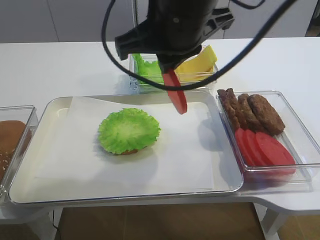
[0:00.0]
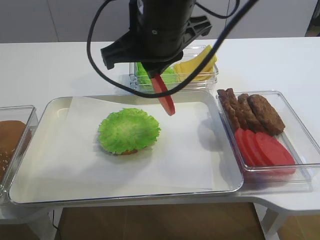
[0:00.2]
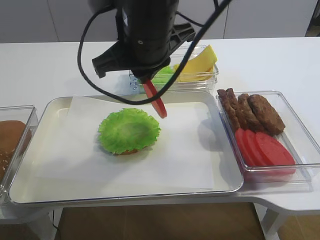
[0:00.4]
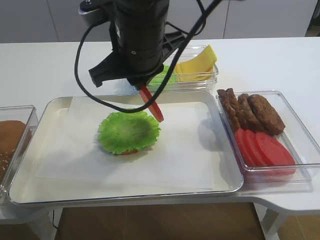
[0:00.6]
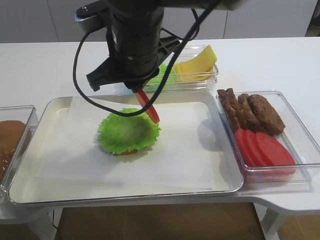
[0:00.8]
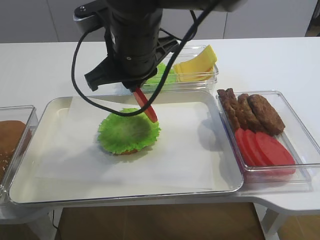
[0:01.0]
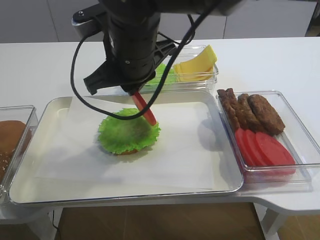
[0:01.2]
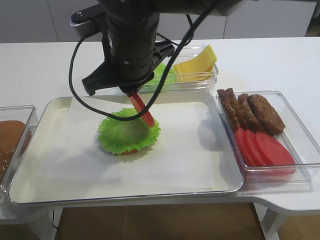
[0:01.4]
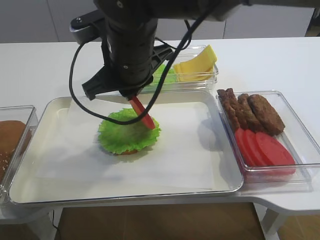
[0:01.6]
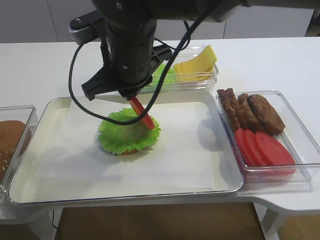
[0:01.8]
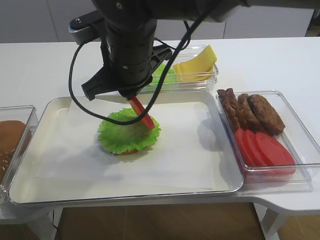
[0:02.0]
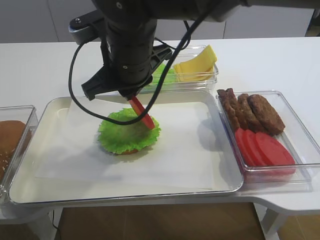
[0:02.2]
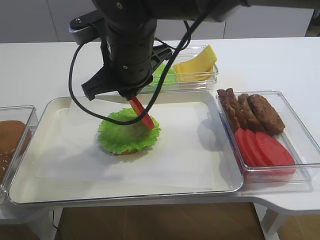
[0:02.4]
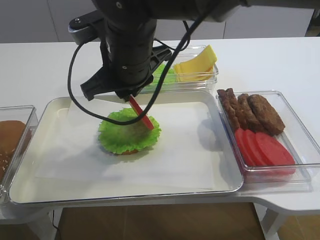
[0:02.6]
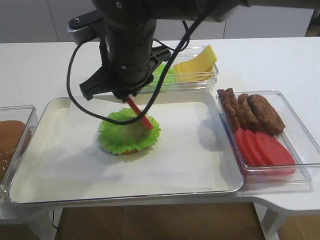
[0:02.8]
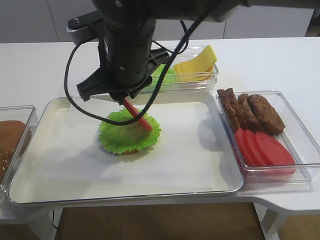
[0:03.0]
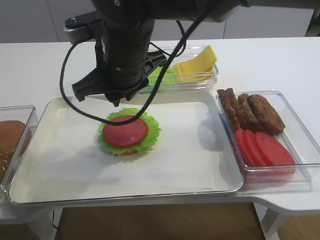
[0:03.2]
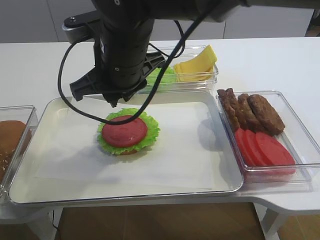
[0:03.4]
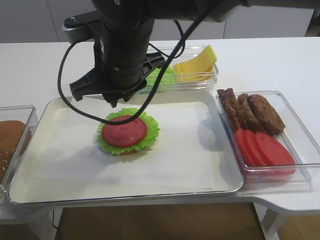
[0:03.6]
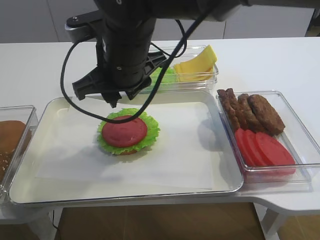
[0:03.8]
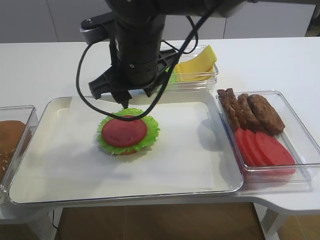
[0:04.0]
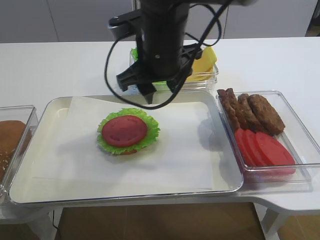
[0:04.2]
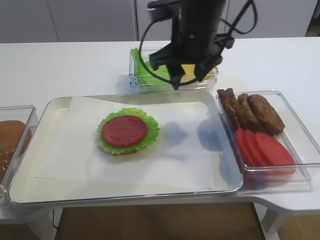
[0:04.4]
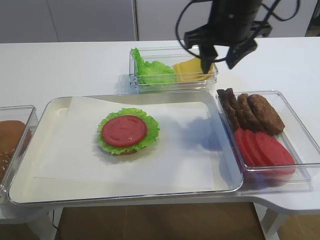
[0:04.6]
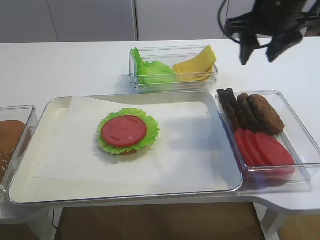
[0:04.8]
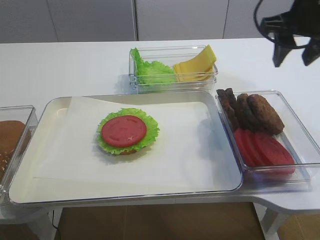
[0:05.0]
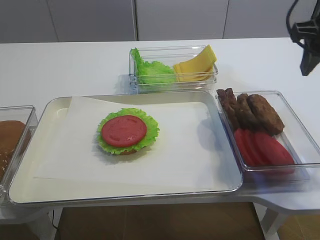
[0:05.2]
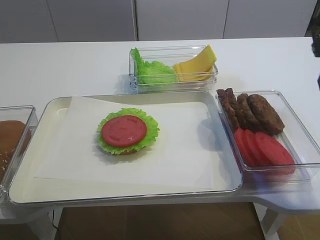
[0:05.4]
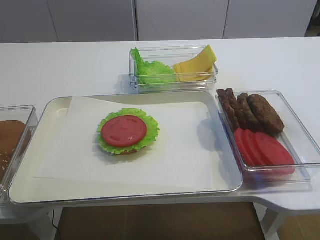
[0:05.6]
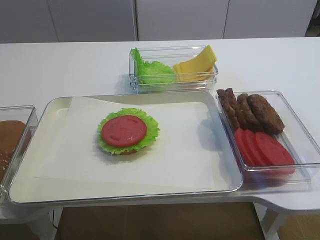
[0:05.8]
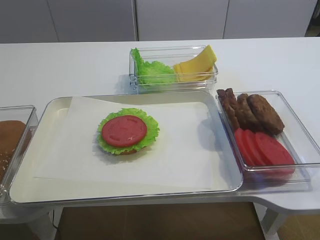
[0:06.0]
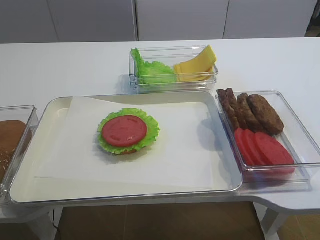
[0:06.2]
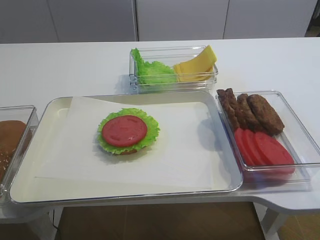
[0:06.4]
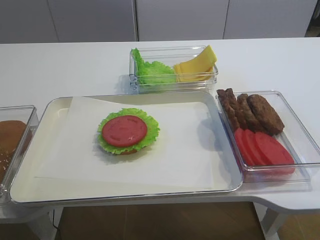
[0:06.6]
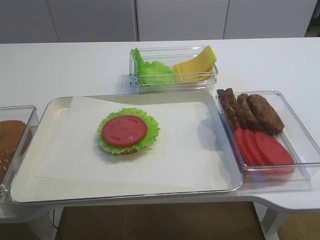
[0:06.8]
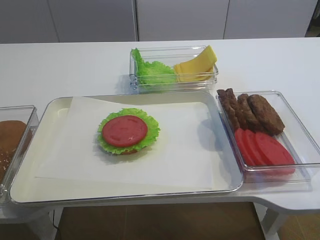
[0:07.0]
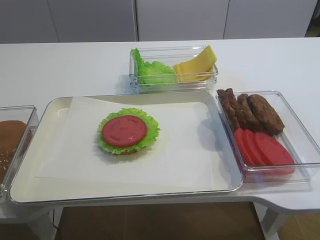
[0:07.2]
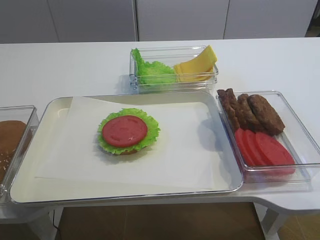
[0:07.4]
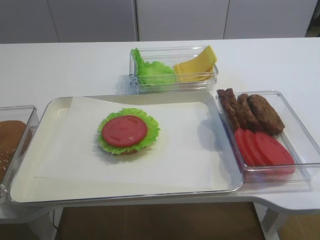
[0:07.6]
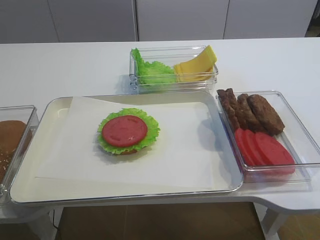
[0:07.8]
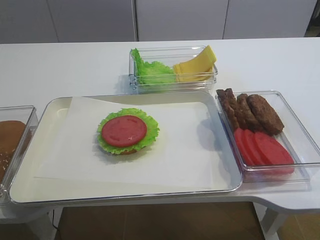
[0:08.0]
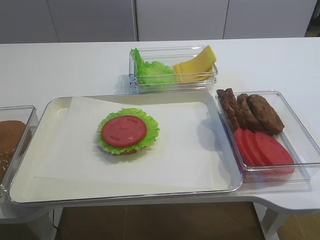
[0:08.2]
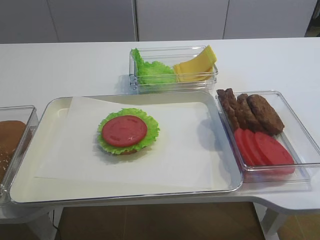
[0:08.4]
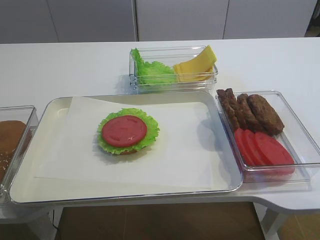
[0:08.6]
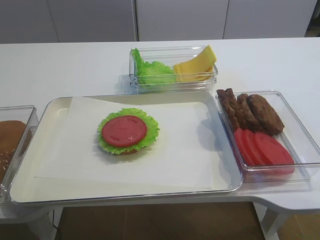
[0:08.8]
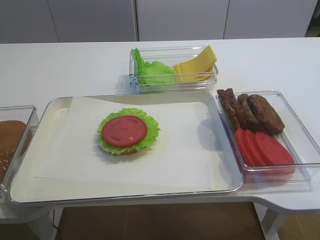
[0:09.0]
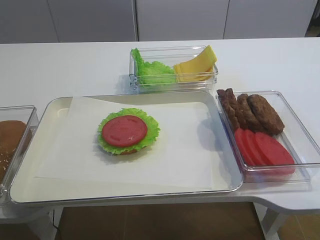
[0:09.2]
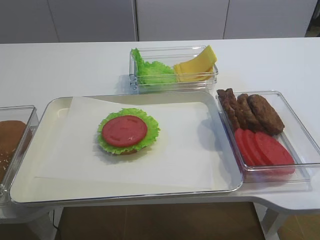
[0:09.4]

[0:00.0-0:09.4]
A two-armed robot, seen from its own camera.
Step, 0:00.0 to 0:03.4: Place the tomato slice on the lettuce leaf with the right gripper.
0:00.0 to 0:01.6: The right gripper travels downward and to the left by some 10 cm.
0:01.6 to 0:03.2: There are only small adjustments of the grippers.
0:03.2 to 0:04.8: The right gripper shifts approximately 20 cm to the right, and opens up.
0:04.8 to 0:06.2: The right gripper moves backward, roughly 35 cm.
0:06.2 to 0:07.8: The right gripper travels downward by some 10 cm.

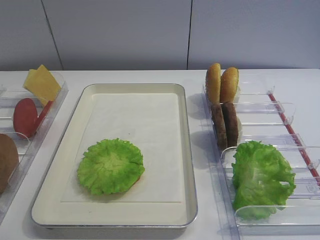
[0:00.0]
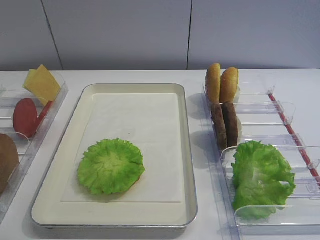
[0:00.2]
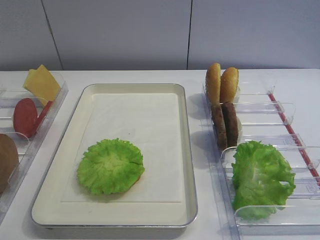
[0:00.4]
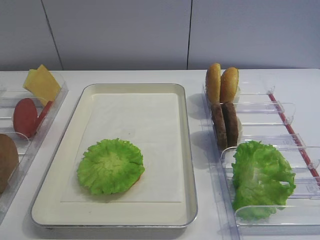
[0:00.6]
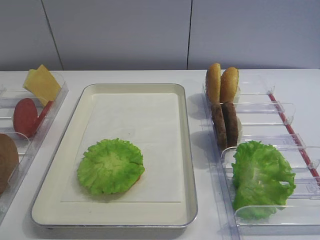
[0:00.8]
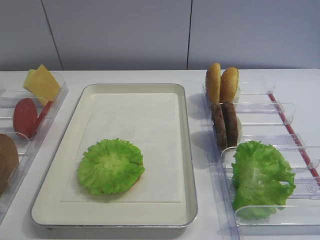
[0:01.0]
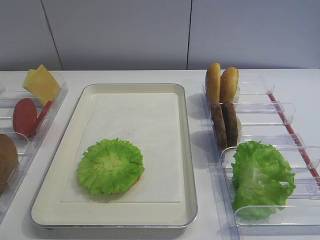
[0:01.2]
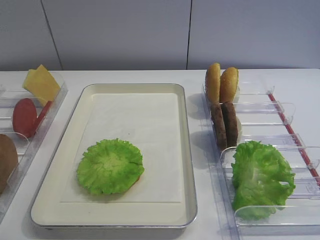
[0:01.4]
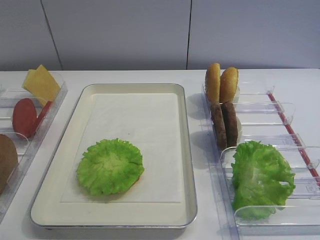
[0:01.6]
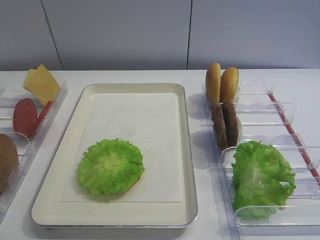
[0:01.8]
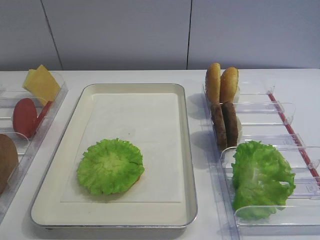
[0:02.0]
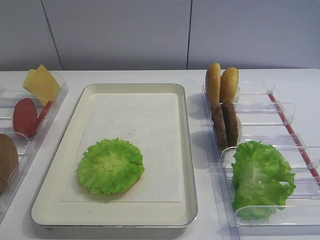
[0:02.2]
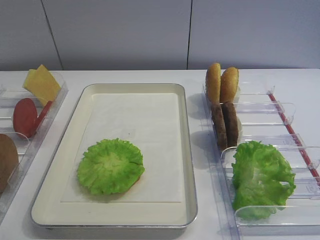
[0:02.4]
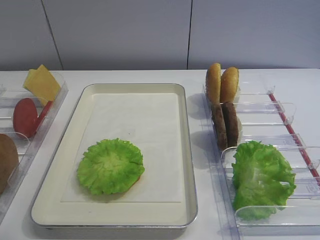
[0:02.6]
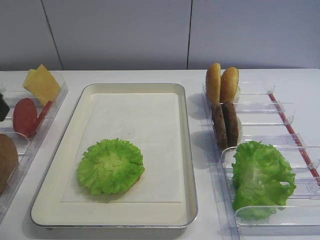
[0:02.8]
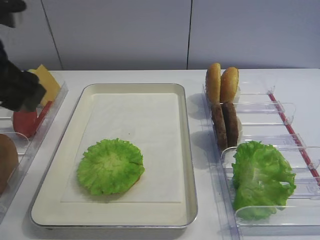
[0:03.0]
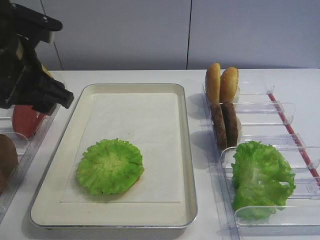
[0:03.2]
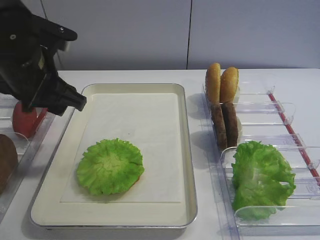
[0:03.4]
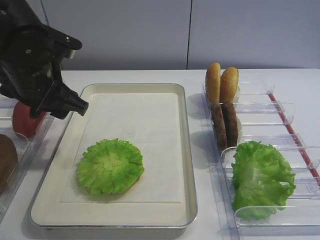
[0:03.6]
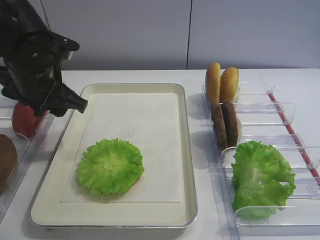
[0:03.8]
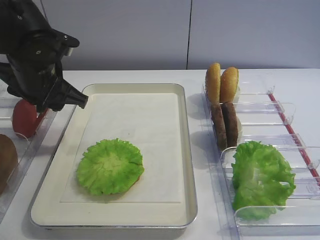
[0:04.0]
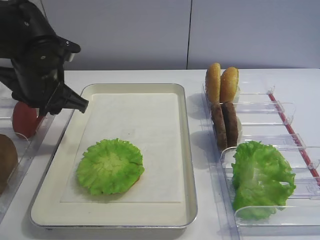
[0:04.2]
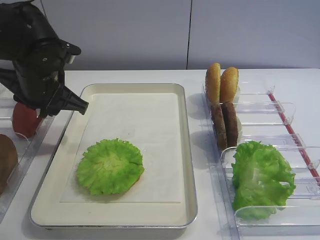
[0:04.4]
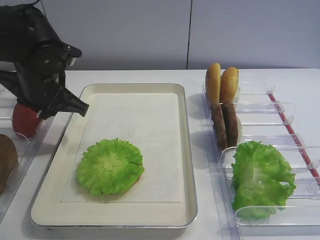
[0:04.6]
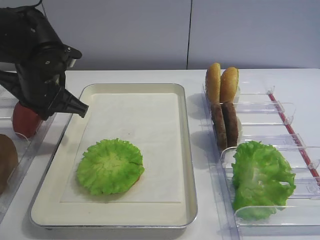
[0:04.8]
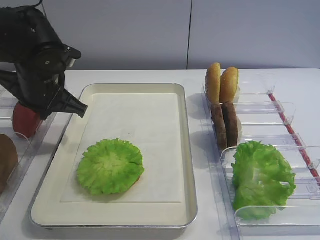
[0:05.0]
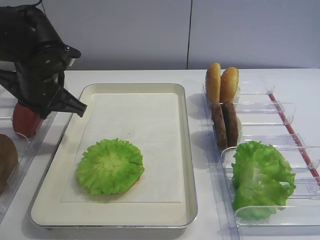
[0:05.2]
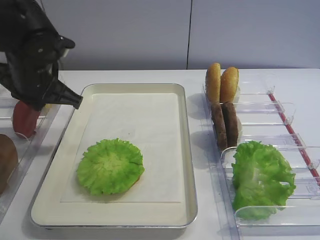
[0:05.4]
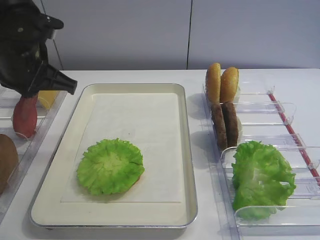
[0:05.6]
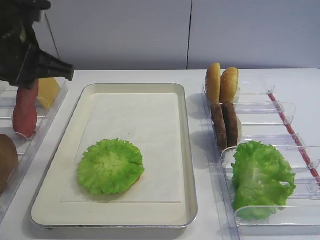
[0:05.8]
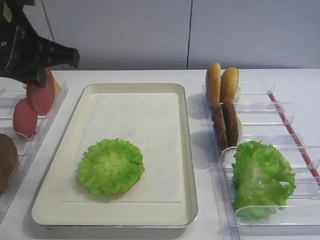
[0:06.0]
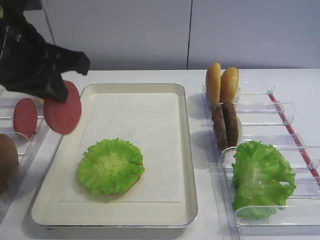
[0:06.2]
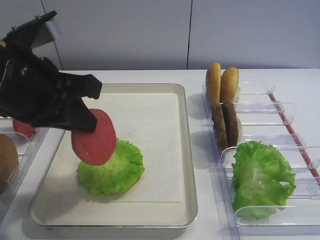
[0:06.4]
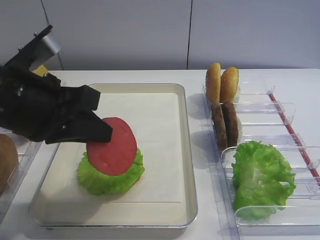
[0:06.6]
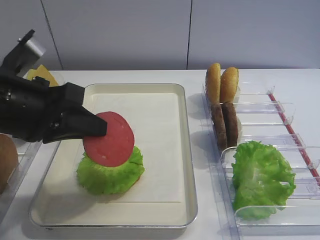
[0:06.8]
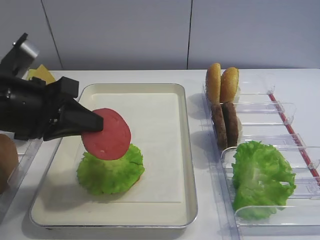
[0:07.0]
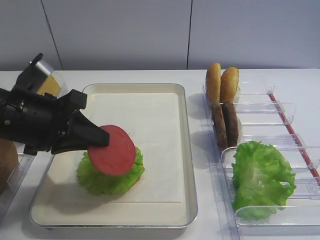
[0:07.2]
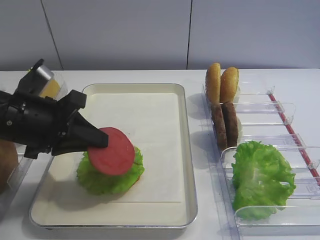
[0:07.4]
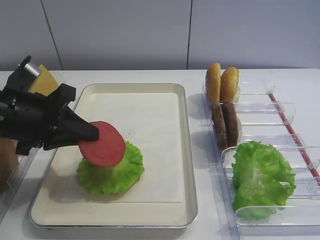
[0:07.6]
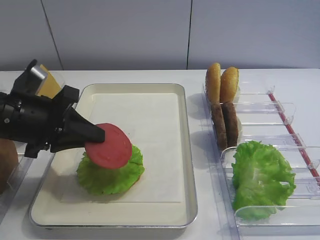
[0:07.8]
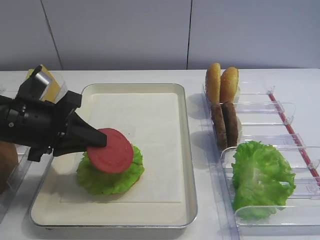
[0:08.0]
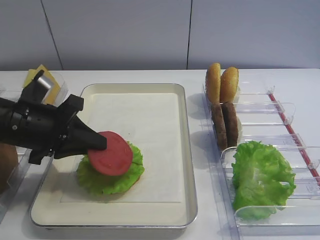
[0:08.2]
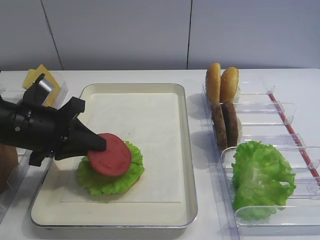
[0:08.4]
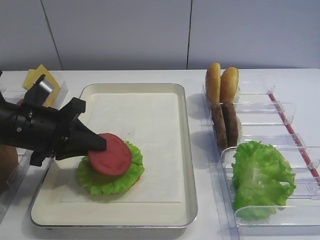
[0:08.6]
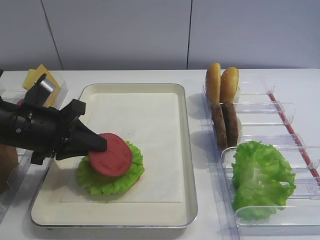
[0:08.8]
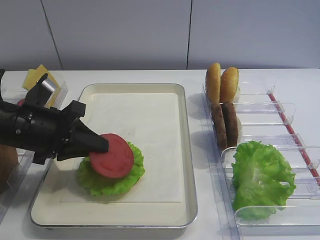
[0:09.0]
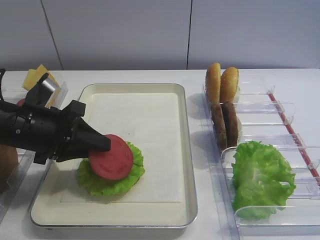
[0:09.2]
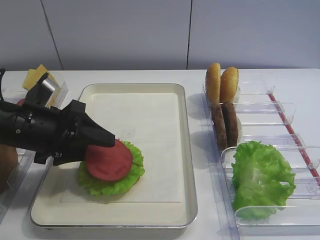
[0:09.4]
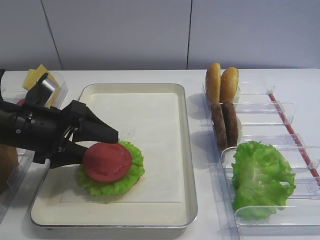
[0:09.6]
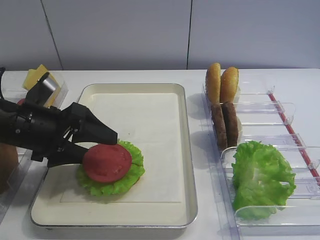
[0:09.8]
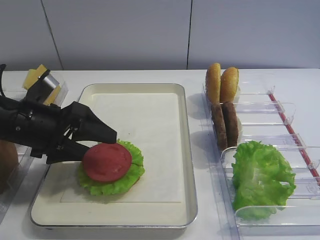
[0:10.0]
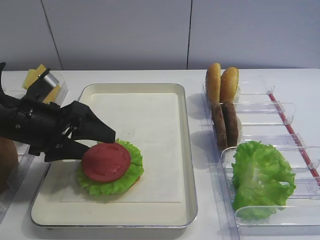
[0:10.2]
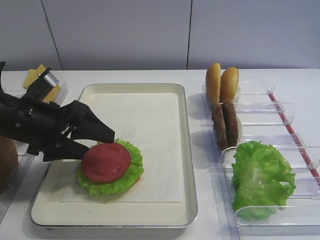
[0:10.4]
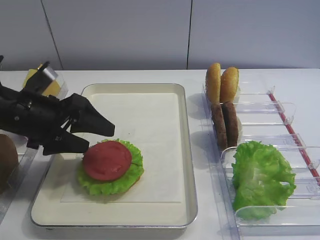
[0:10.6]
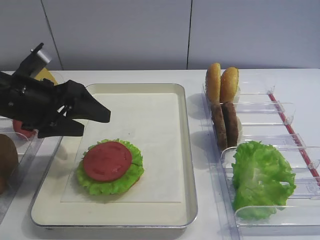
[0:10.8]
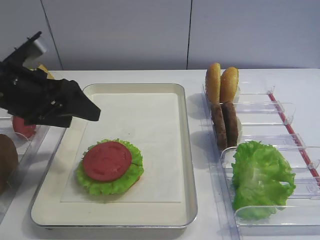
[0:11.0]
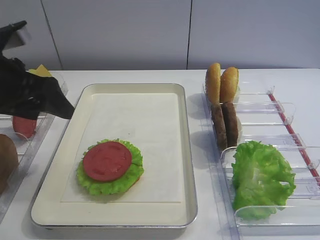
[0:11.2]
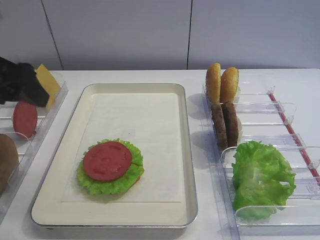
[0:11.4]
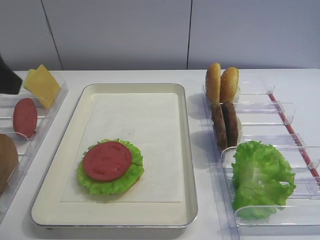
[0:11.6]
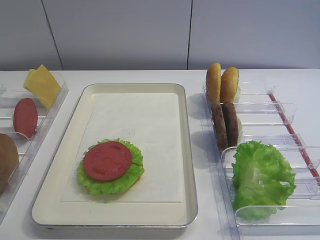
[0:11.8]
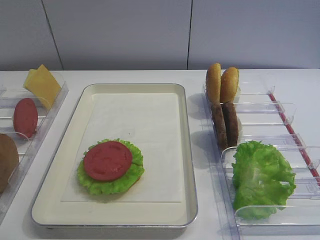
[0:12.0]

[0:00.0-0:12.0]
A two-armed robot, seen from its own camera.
Step, 0:00.0 to 0:05.6: Pick up the tomato slice with the left gripper.
Step, 0:05.8 to 0:10.0: Place the tomato slice on the lettuce leaf with the left gripper.
0:01.6 to 0:03.0: The left gripper moves forward, some 25 cm.
0:03.0 to 0:04.4: The left gripper shifts approximately 15 cm forward and downward, and closes its fingers.
0:04.4 to 0:06.0: The left gripper goes roughly 10 cm upward and backward, and closes.
0:06.0 to 0:07.6: The left gripper moves downward, approximately 10 cm.
0:07.6 to 0:09.0: The grippers make only small movements.
0:09.0 to 0:10.4: The left gripper opens its fingers.
0:10.4 to 0:12.0: The left gripper shifts about 25 cm backward and upward.

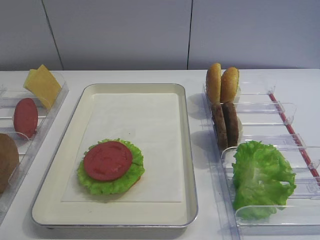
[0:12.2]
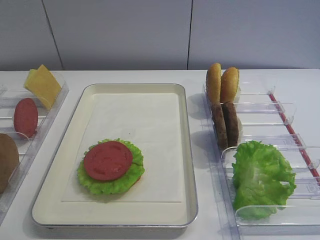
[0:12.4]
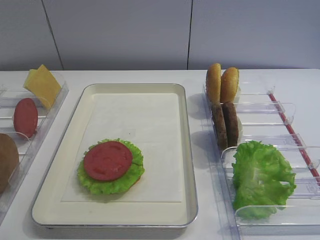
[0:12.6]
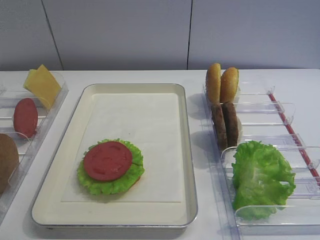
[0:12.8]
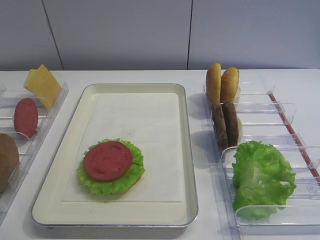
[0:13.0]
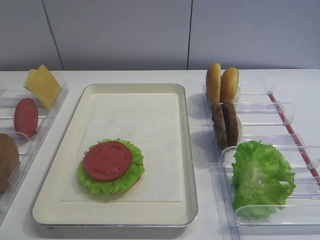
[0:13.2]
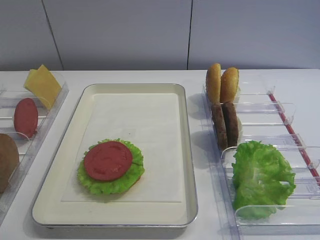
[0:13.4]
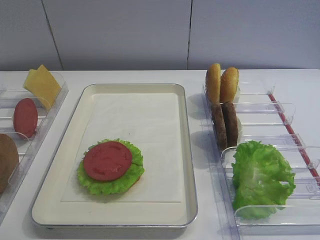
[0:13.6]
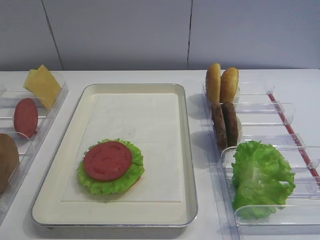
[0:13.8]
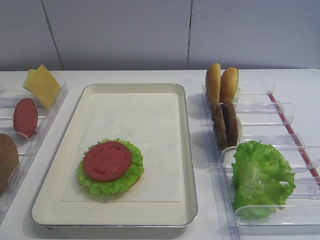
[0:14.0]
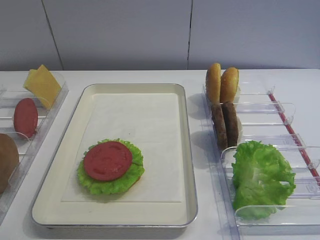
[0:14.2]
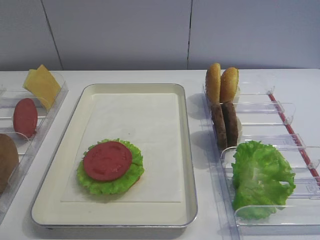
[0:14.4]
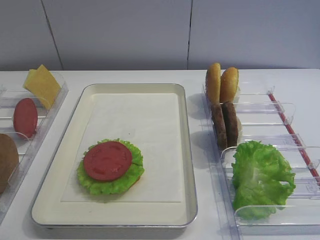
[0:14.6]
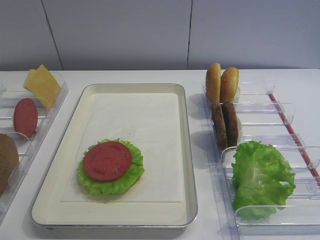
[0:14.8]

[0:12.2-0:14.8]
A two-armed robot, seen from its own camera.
0:13.4 to 0:14.8: The two grippers keep their place.
